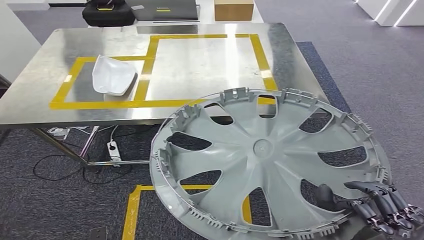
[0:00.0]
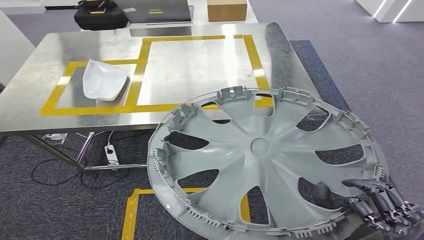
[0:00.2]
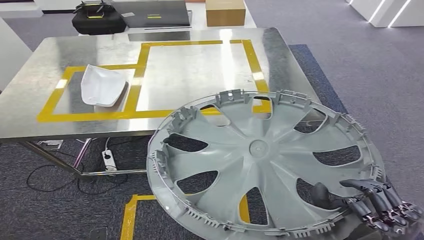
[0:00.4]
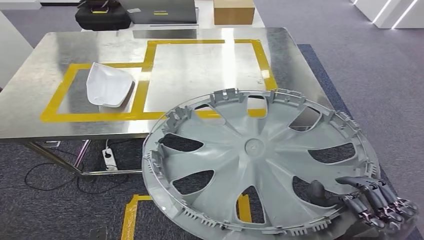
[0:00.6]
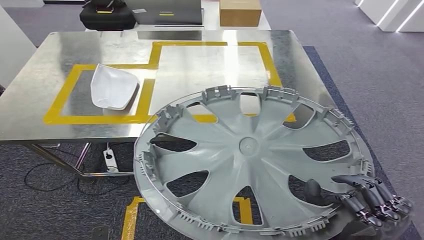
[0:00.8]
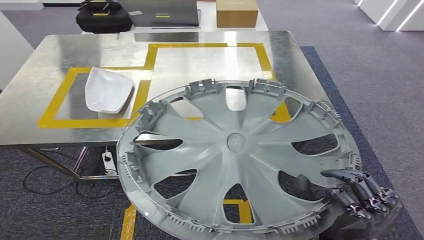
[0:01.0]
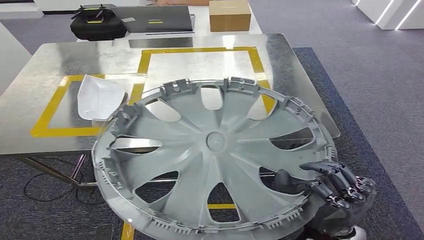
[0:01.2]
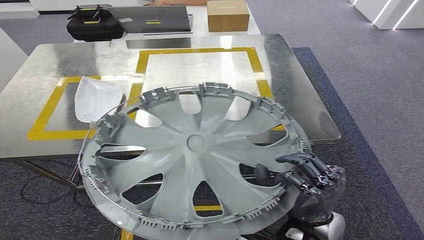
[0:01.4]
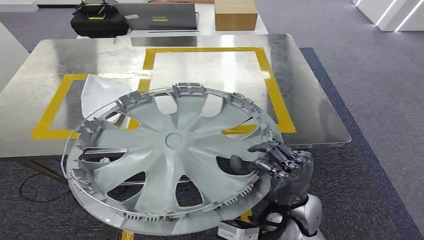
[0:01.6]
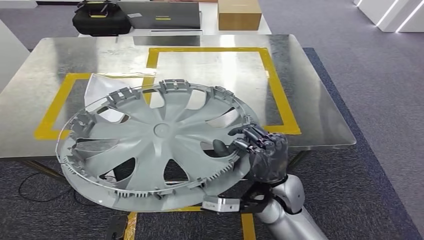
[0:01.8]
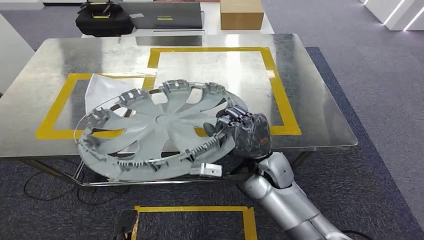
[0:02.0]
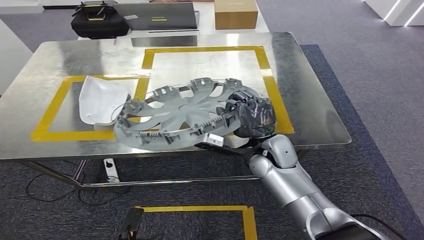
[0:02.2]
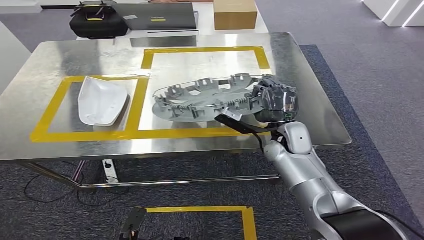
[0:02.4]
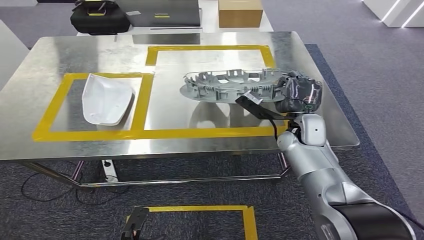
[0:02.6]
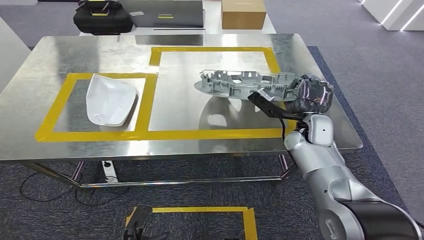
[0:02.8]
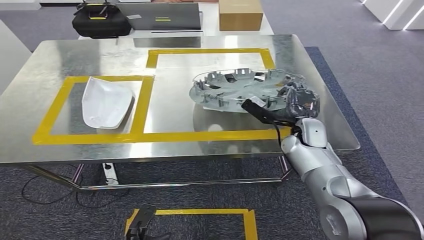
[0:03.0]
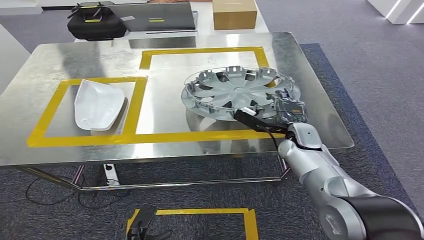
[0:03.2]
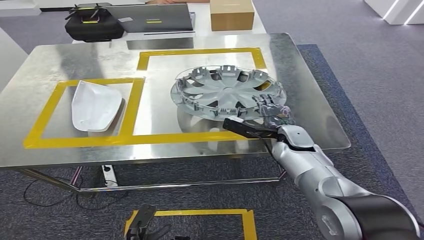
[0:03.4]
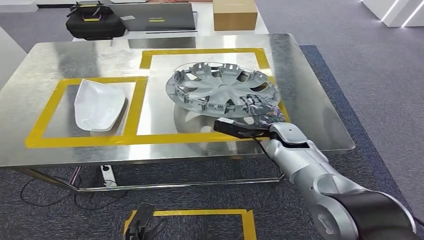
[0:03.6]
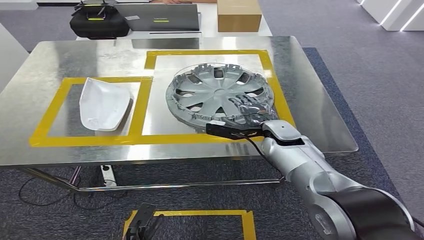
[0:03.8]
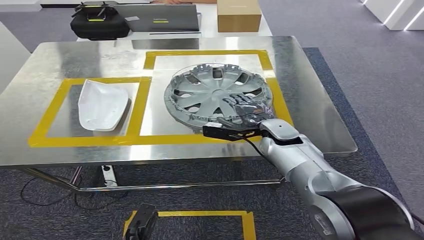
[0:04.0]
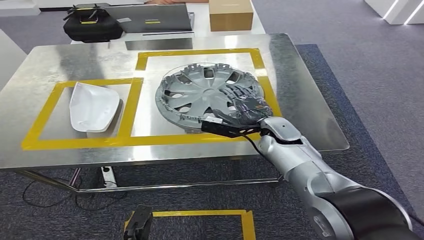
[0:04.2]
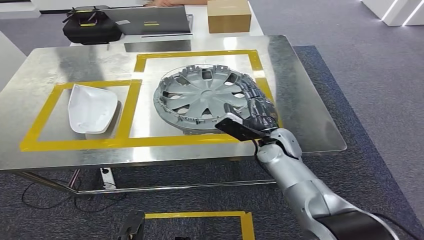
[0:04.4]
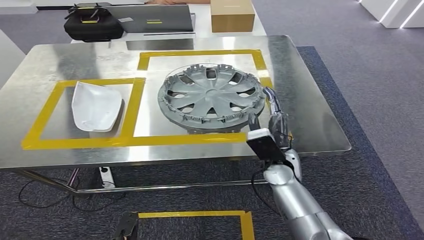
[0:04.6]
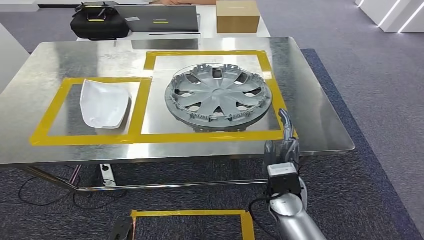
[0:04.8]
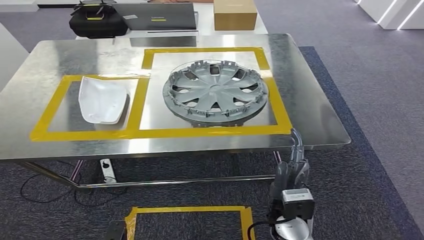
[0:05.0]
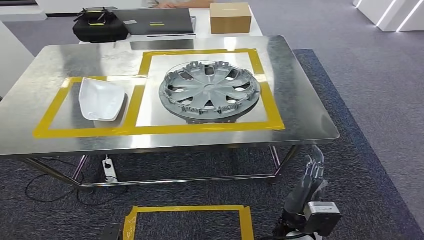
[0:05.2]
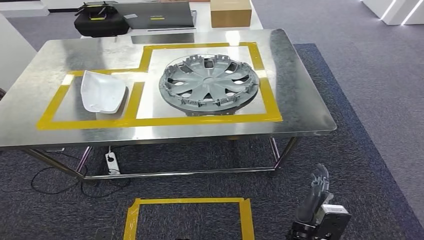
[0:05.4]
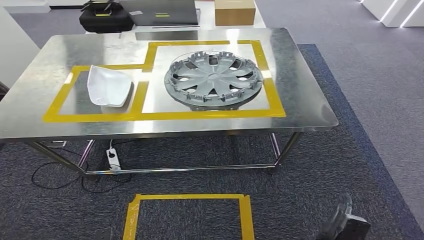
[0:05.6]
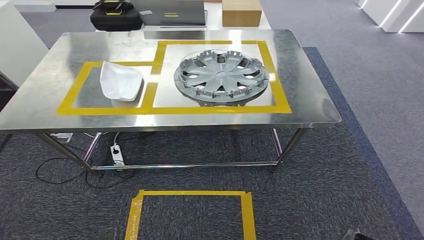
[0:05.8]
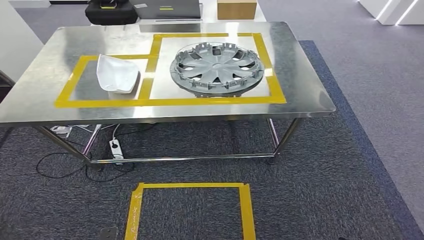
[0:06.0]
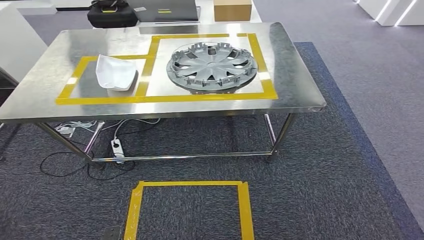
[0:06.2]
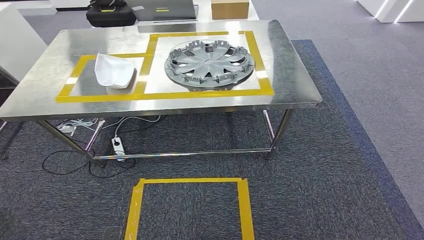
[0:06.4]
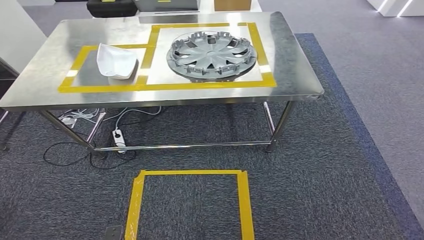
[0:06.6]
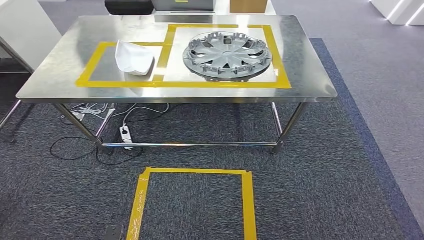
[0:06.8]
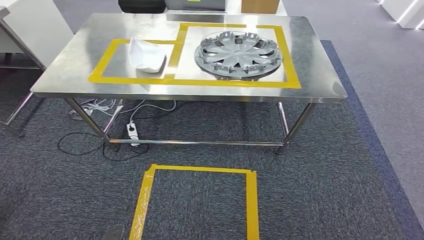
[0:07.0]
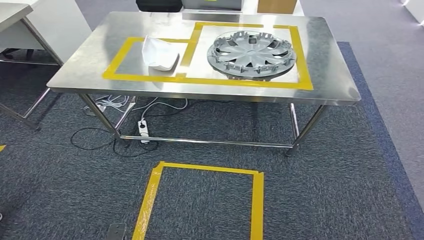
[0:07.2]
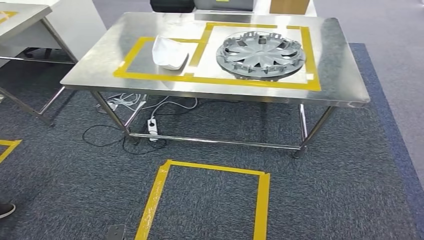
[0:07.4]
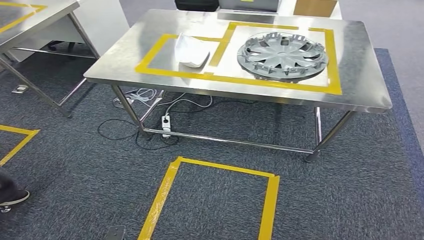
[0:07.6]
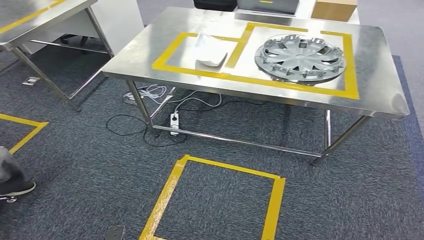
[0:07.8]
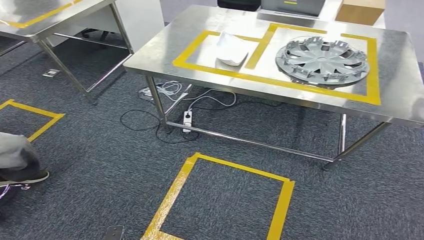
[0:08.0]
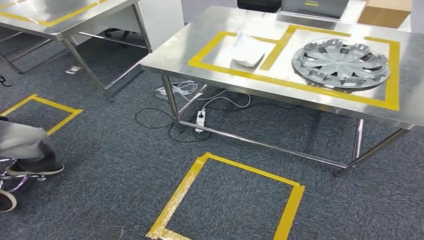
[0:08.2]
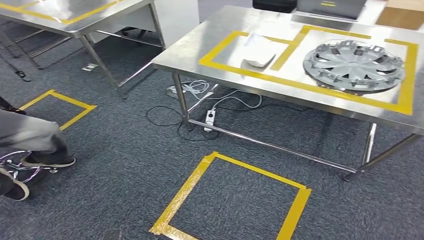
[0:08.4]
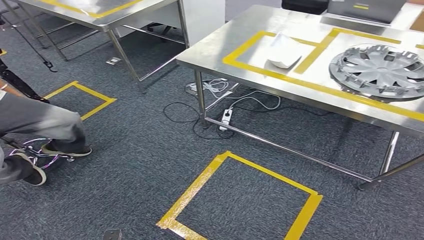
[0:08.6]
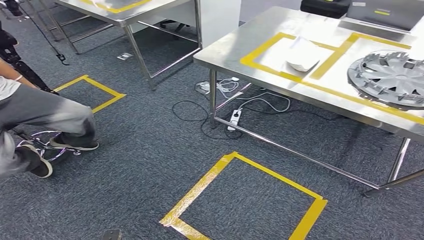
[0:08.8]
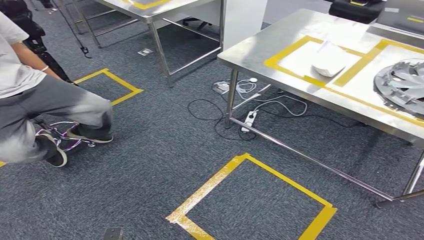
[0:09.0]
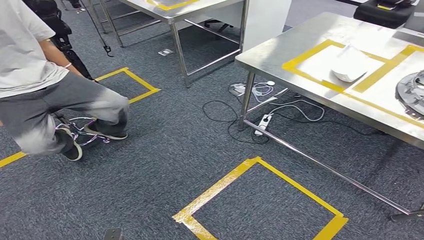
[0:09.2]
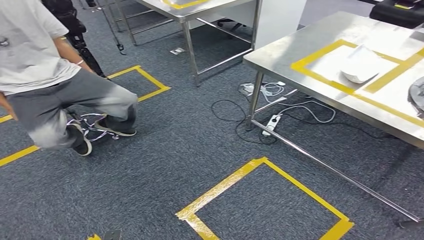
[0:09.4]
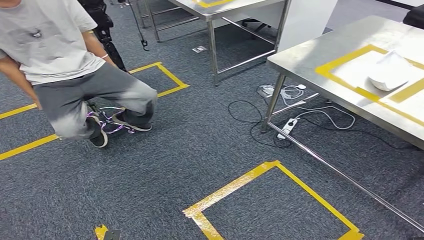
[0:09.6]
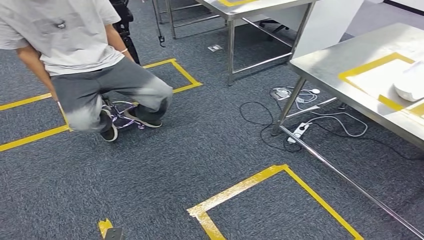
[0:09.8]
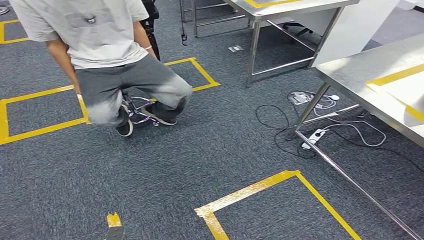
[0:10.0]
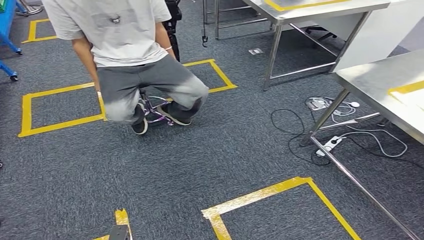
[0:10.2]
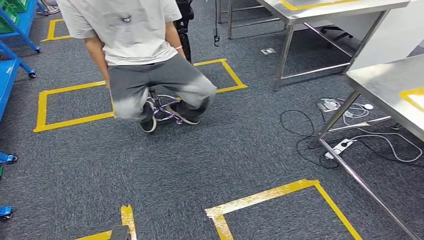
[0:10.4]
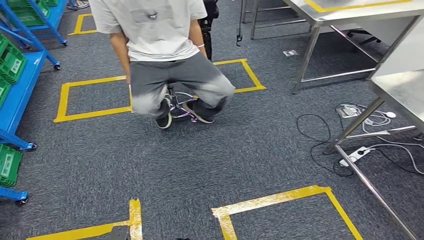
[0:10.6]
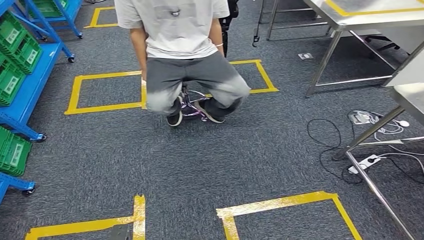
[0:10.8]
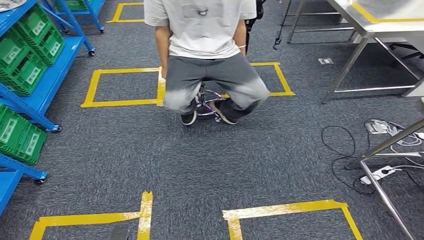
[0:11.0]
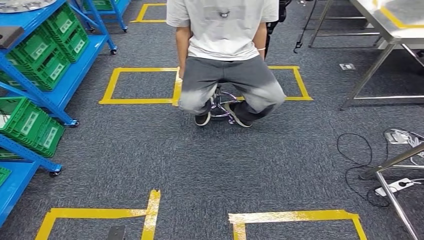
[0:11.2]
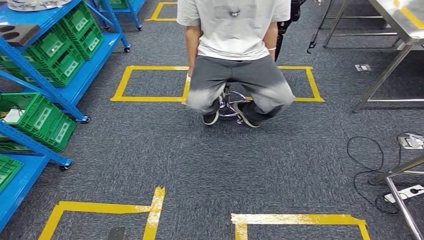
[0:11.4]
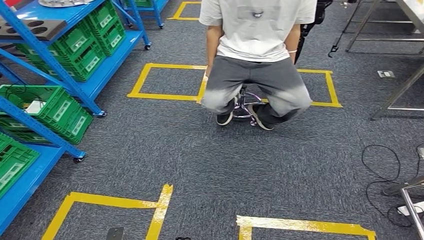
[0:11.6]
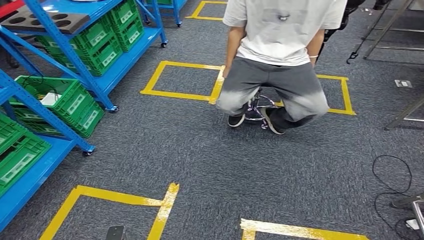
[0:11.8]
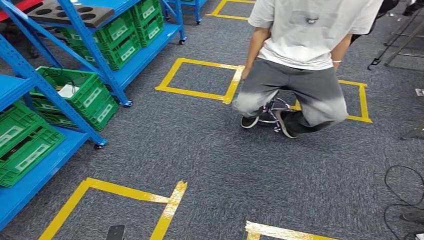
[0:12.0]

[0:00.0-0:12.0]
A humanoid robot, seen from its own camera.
Step, 0:00.0 to 0:05.0: Insert the small component into the corresponding slot on the workbench.

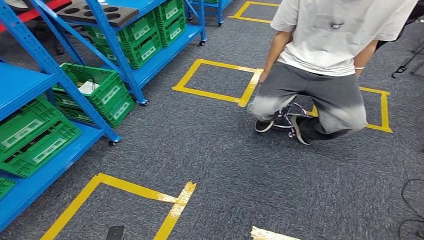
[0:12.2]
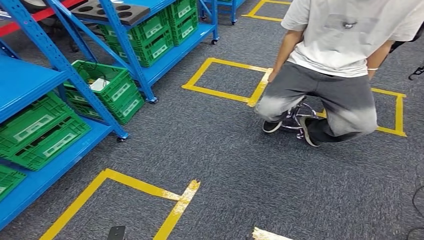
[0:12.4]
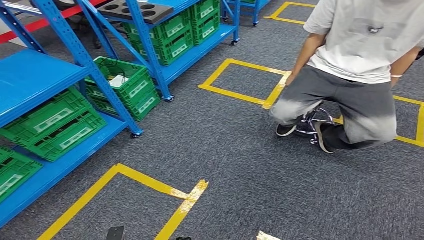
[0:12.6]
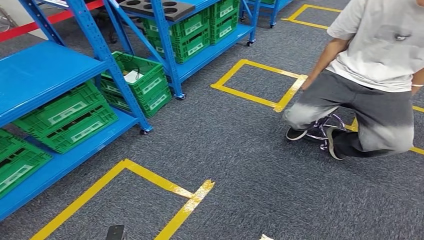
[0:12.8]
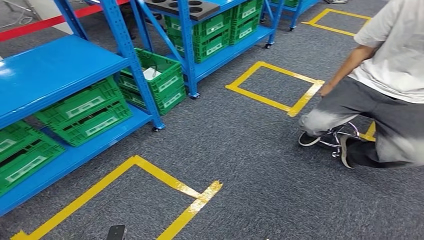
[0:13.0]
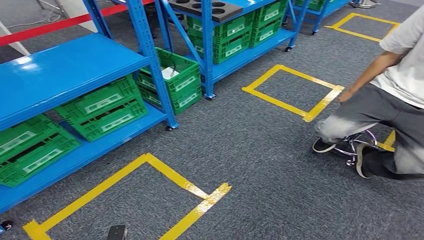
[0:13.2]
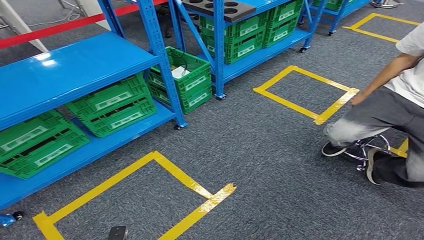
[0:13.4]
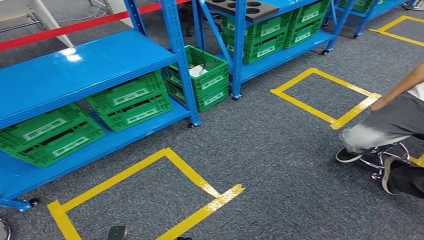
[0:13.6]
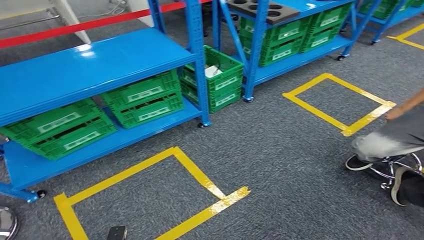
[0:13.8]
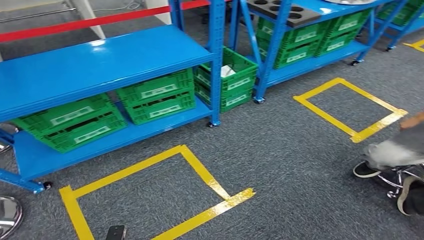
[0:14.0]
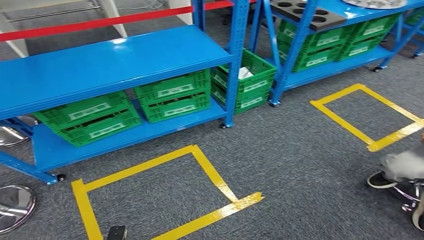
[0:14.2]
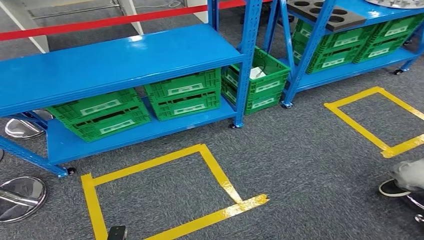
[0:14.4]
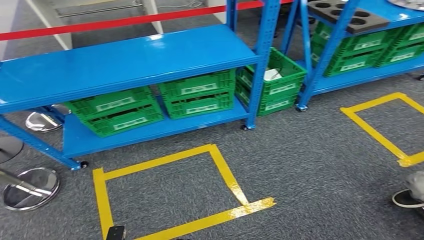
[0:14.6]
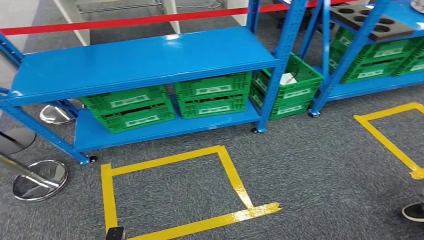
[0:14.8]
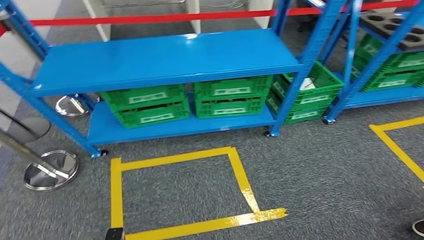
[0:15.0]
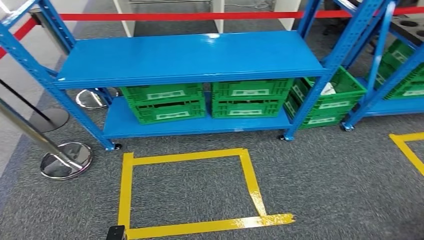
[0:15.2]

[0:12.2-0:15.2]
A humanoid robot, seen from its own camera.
Step, 0:12.2 to 0:15.2: Return to the initial position at the workbench.
